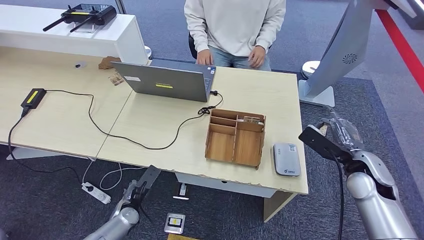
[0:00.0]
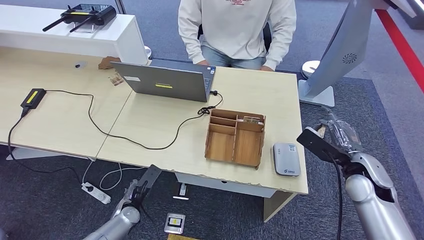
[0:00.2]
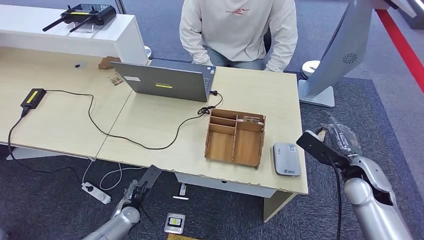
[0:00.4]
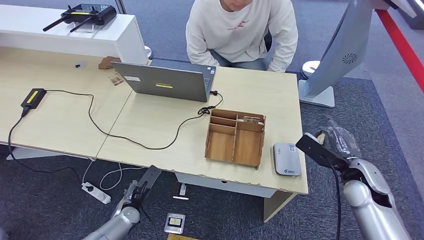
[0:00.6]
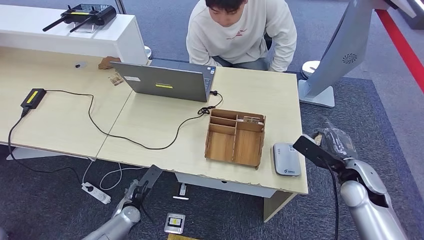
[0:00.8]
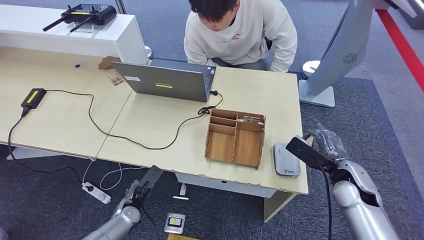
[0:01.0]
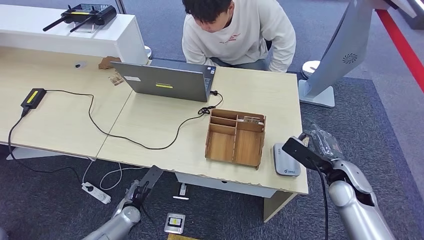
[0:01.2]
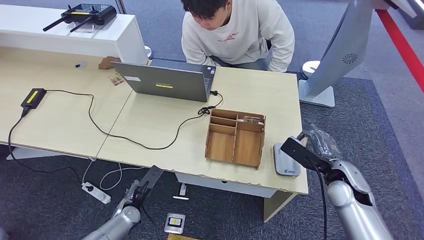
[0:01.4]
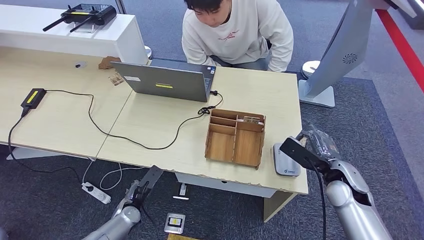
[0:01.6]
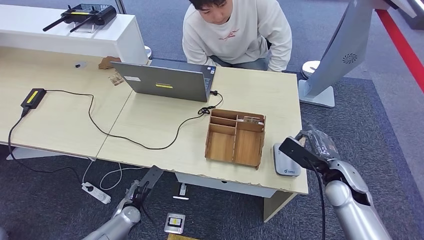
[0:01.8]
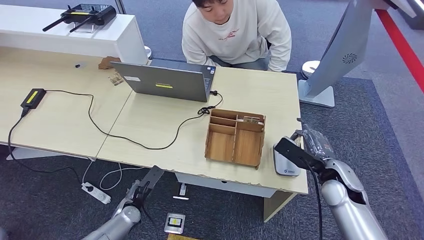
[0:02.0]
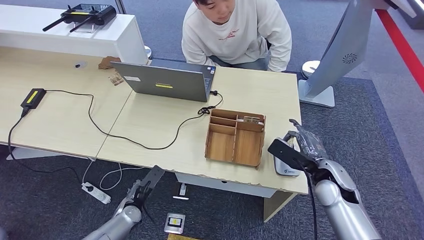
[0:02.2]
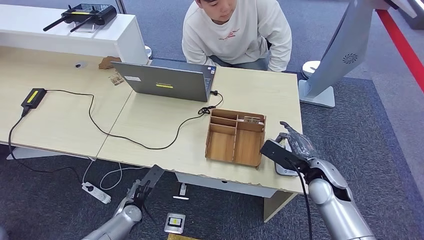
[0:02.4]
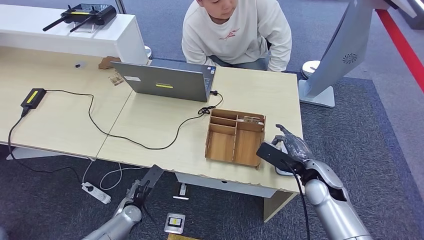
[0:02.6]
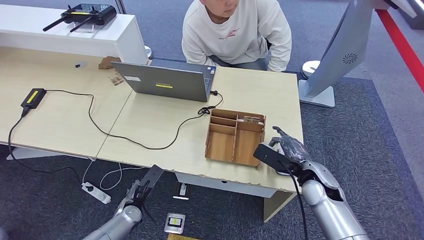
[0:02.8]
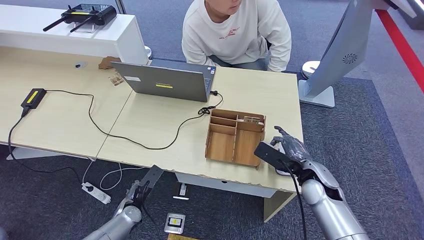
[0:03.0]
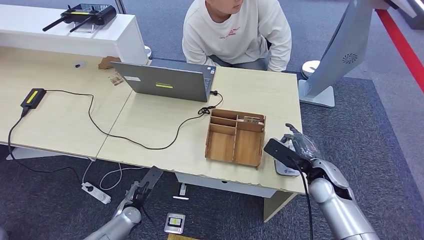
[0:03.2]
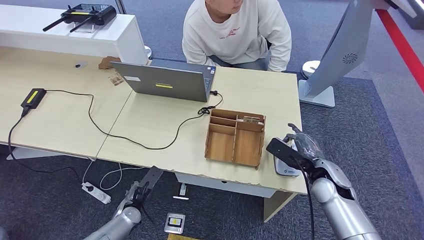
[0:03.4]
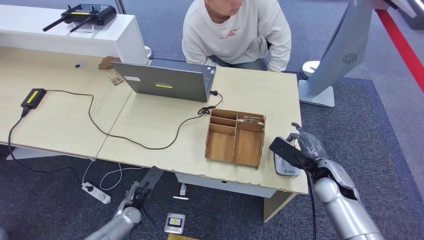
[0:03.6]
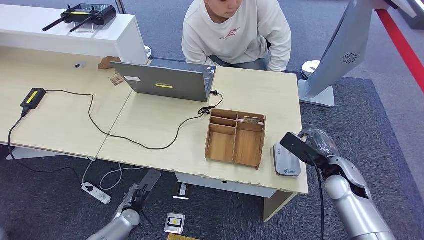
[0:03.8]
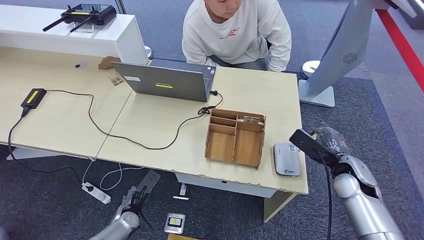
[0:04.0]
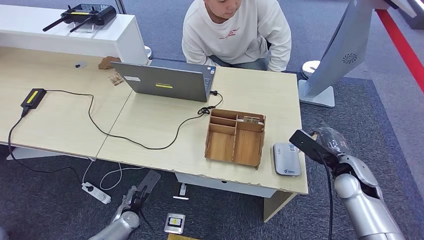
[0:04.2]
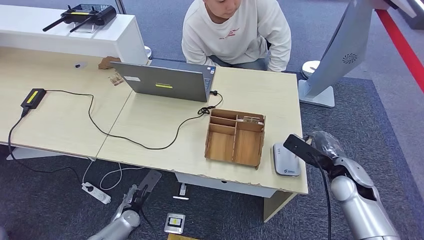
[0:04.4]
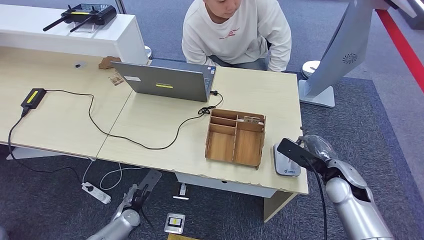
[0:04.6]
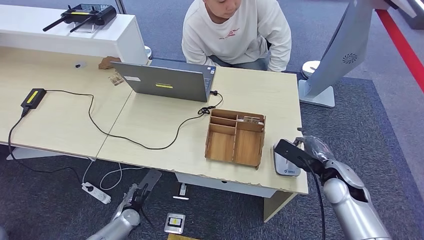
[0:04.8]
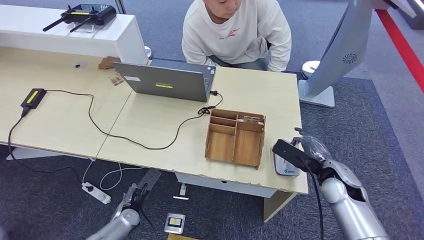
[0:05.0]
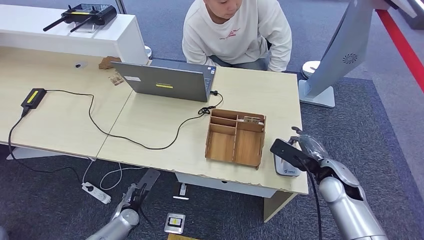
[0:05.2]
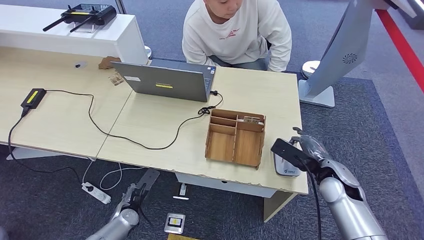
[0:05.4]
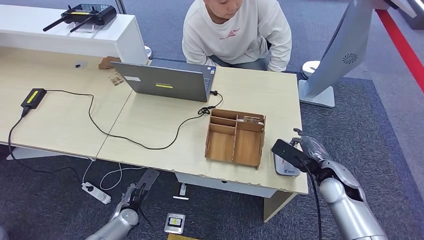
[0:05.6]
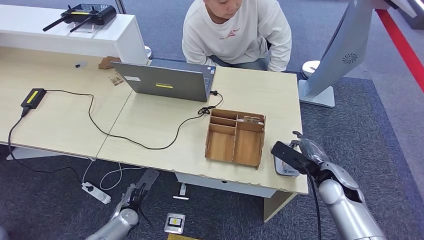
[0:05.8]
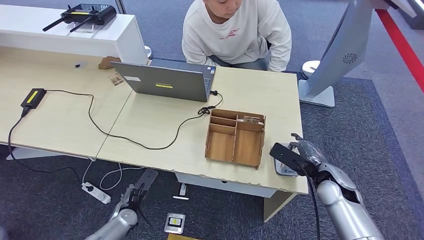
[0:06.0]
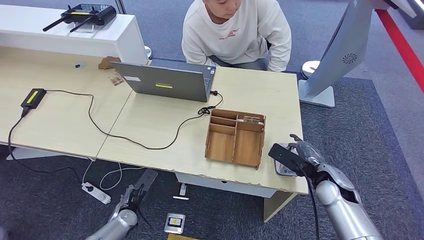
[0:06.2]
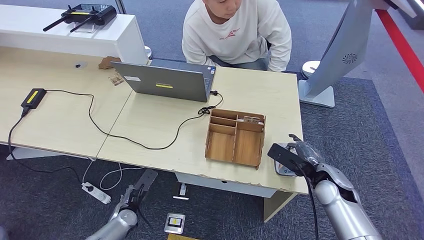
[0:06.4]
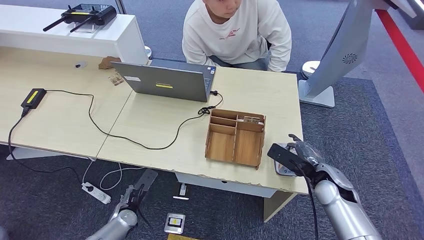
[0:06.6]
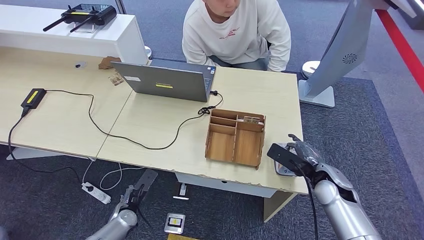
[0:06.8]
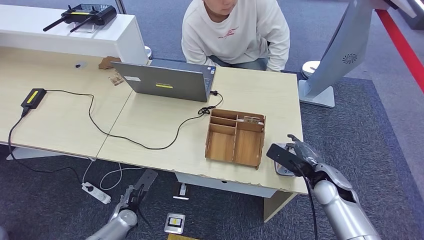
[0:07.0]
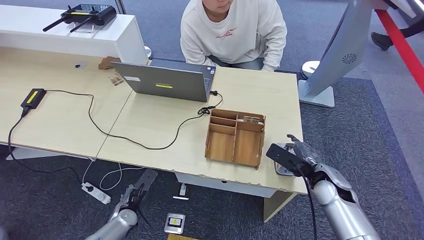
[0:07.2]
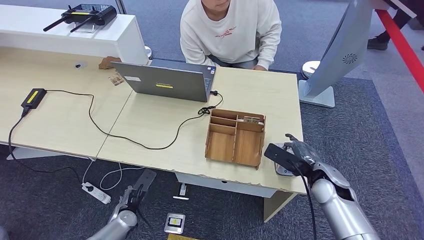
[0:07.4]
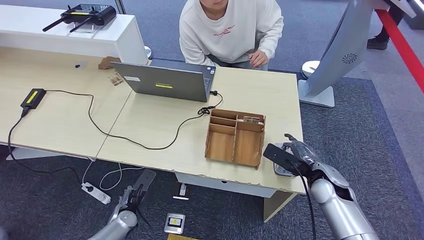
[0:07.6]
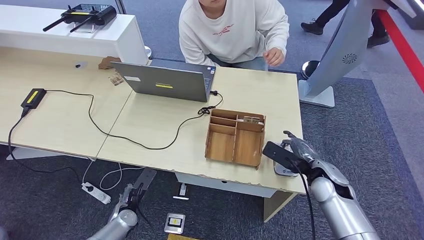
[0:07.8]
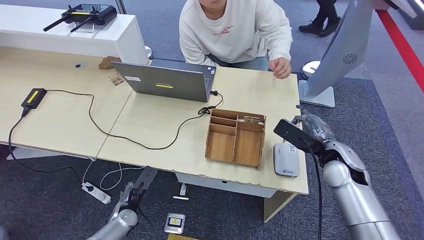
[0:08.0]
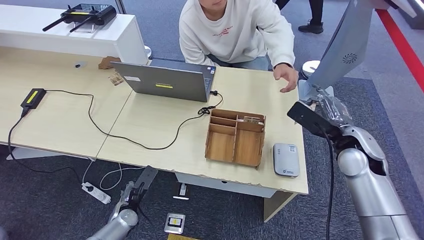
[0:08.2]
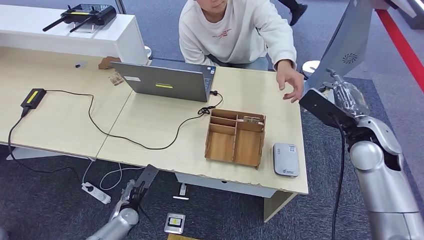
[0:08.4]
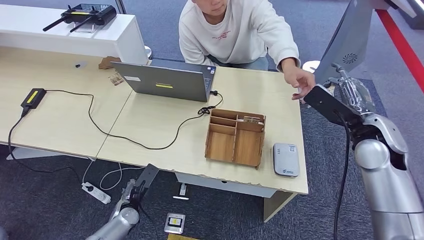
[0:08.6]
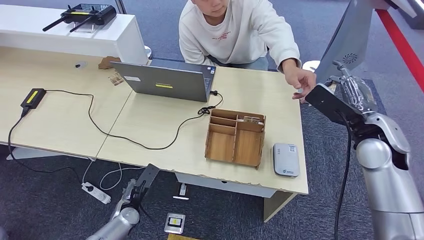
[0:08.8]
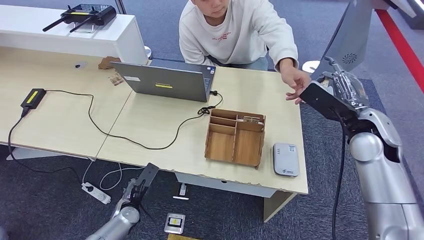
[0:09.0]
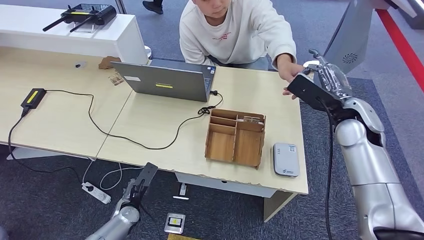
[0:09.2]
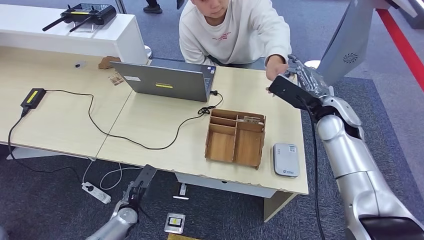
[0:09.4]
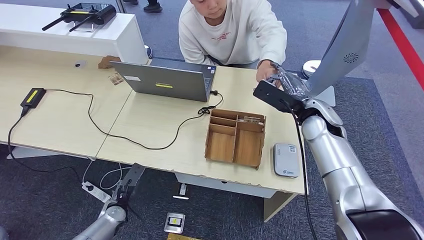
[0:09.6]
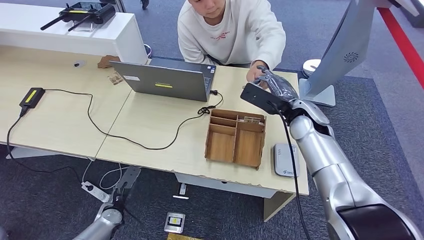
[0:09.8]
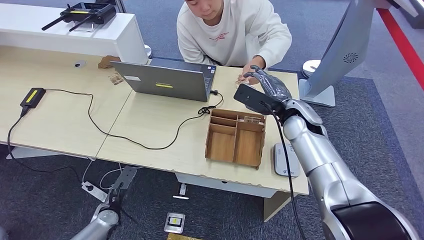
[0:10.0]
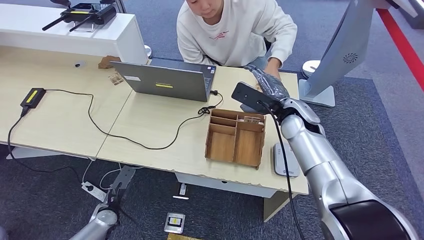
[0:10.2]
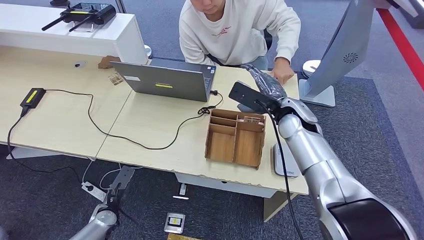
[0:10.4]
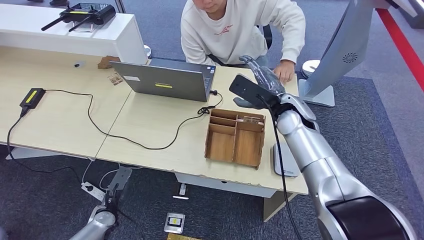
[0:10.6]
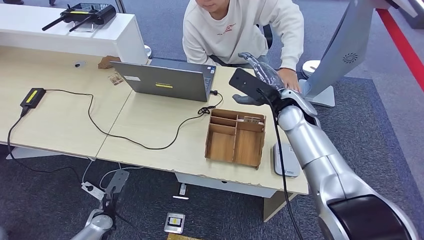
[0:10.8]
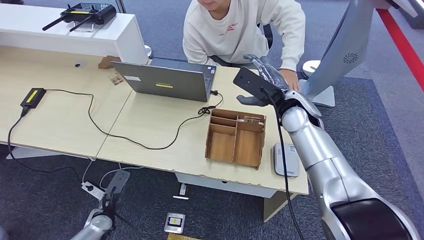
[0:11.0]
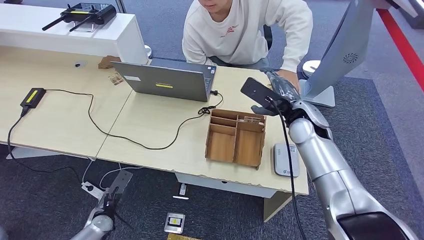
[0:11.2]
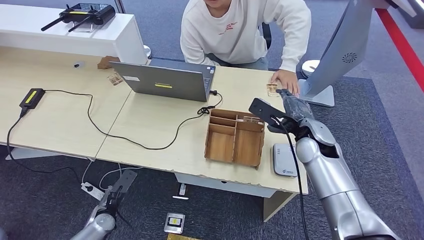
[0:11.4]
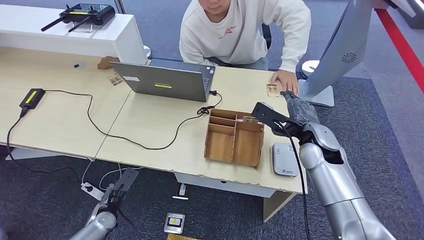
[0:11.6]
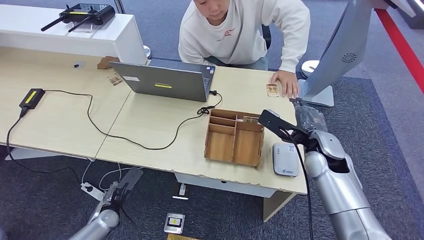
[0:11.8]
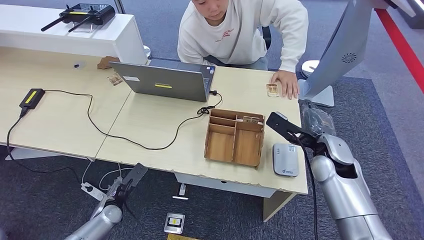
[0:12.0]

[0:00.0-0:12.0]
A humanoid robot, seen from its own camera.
Step, 0:00.0 to 0:08.2: Place the ID card on the card reader.
Step, 0:08.4 to 0:10.8: Hand the ID card to the person.
0:00.0 to 0:01.6: The right hand shifts by approximately 5 cm.
0:01.6 to 0:03.0: The right hand goes approximately 5 cm to the left.
0:03.0 to 0:04.4: The right hand goes roughly 10 cm to the right.
0:04.4 to 0:07.6: The hands make only small movements.
0:07.6 to 0:09.0: The right hand heads upward, covering roughly 15 cm.
0:10.4 to 0:12.0: The right hand moves to the right, backward and downward, roughly 10 cm.

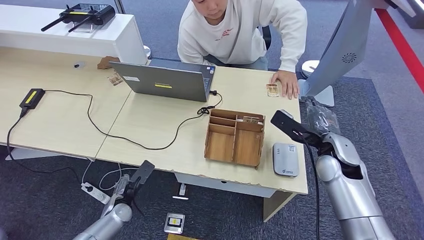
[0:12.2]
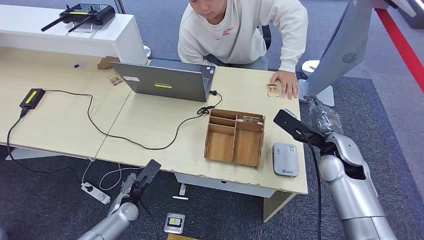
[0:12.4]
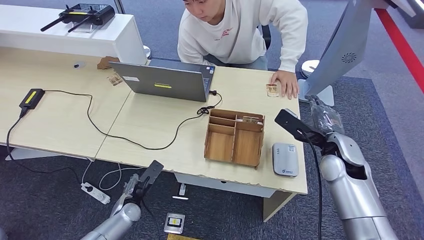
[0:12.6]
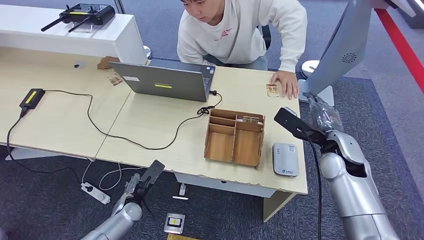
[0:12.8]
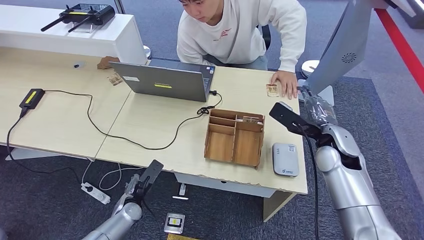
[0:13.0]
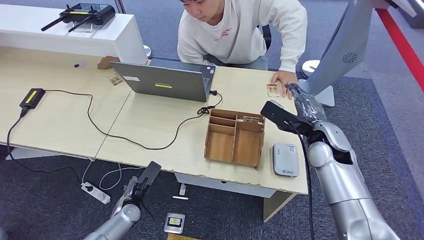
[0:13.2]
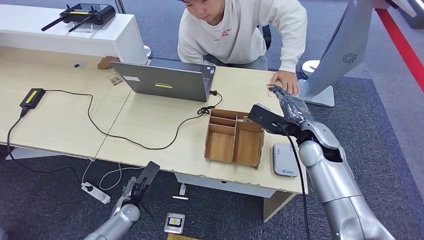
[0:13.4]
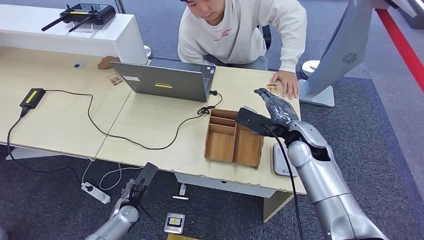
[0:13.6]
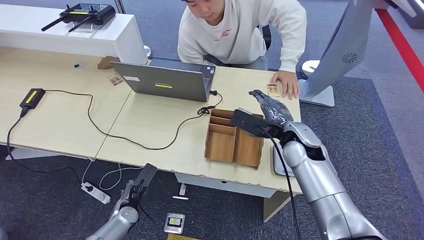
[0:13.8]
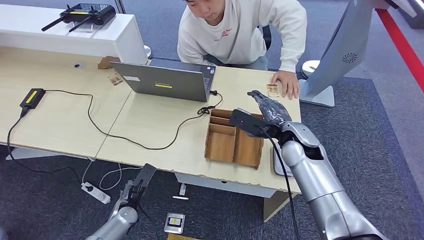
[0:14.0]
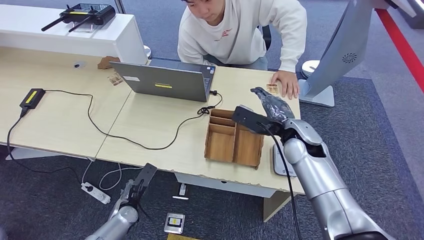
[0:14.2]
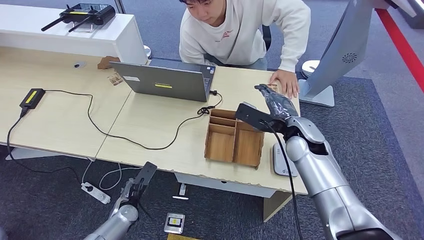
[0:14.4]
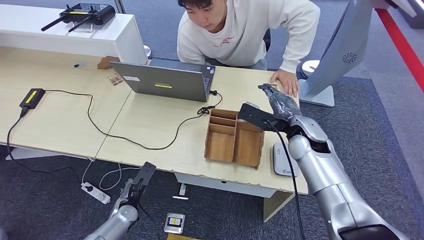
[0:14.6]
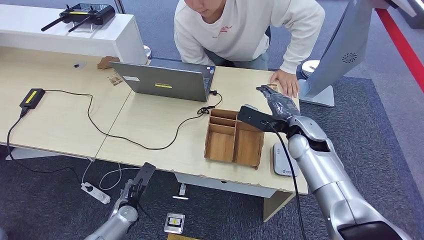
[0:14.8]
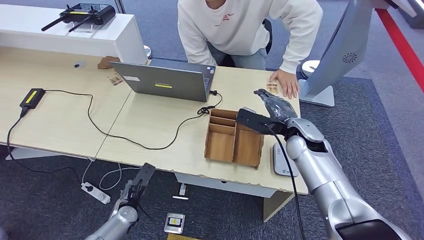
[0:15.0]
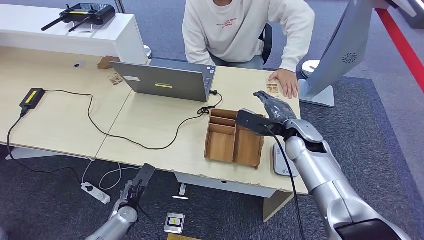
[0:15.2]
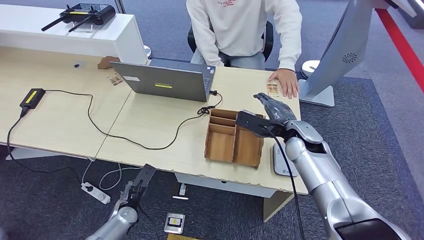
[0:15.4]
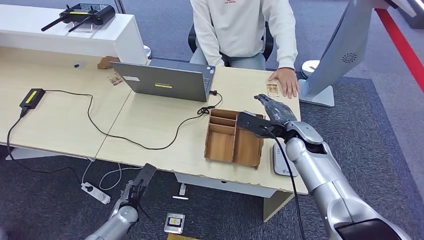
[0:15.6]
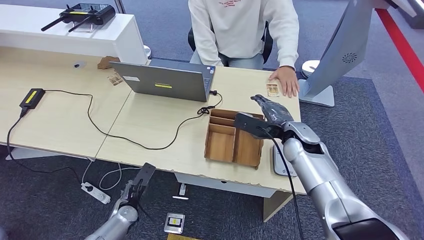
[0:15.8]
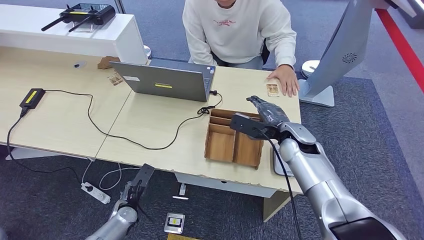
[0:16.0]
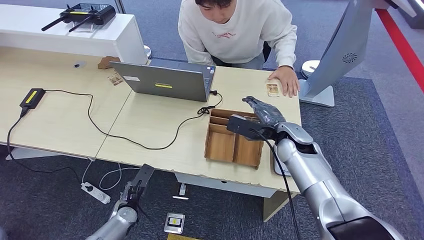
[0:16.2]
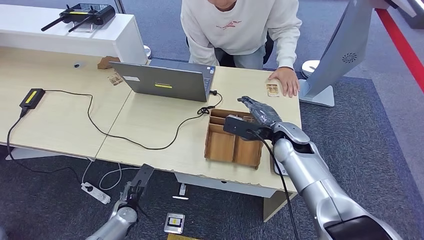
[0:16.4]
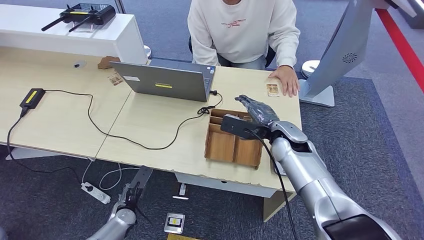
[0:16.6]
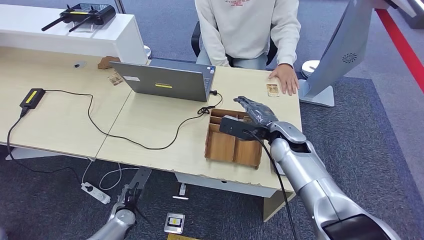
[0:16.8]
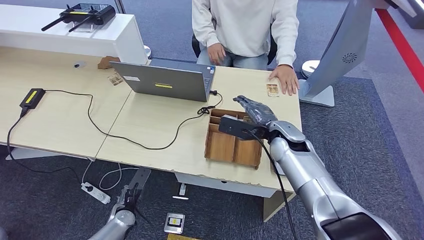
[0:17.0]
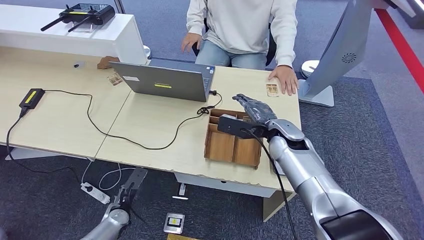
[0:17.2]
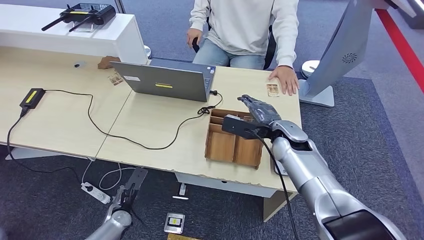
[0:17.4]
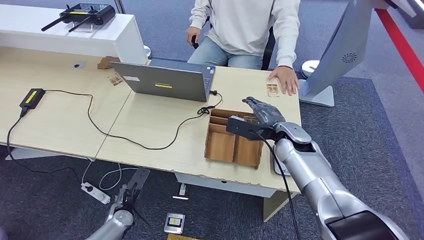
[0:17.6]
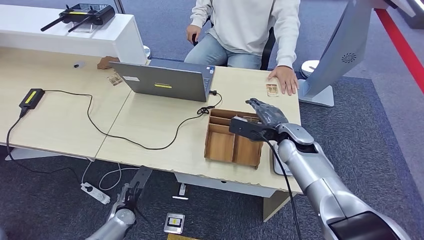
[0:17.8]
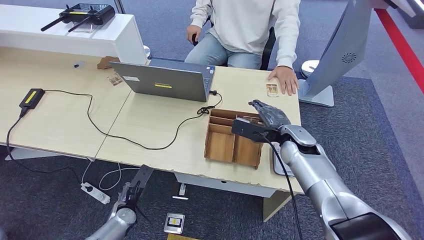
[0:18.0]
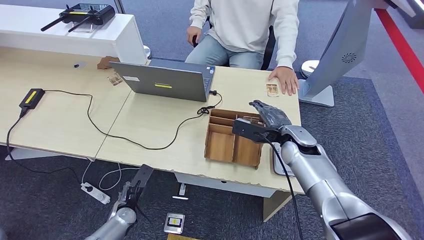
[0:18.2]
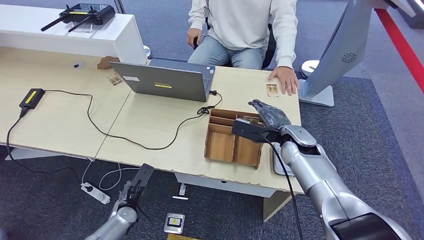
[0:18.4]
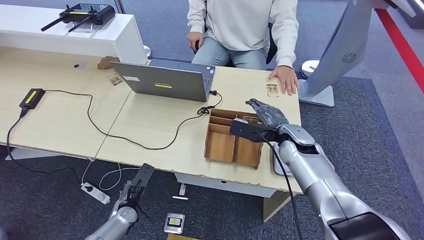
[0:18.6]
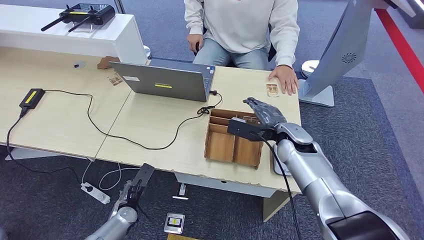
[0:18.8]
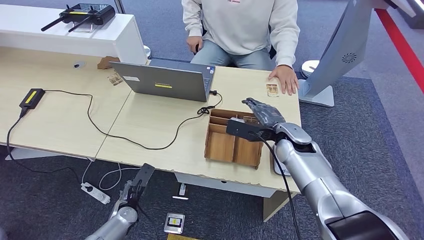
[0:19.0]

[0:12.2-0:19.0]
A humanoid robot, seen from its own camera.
0:12.2 to 0:13.6: The right hand is displaced to the left by about 5 cm.
0:13.6 to 0:19.0: The hands make only small movements.
